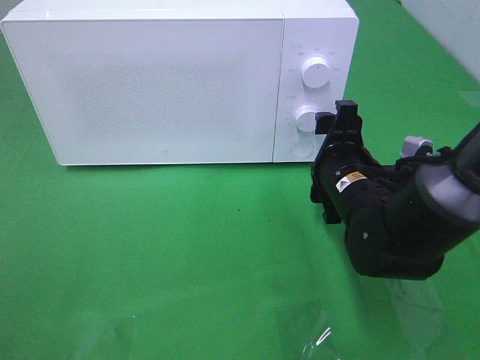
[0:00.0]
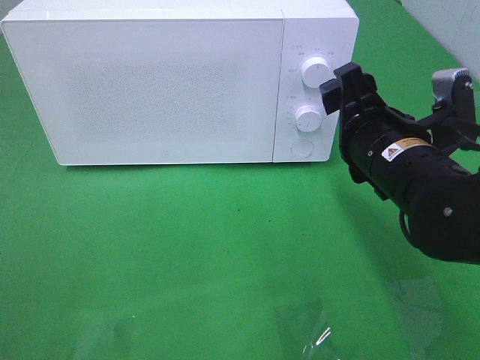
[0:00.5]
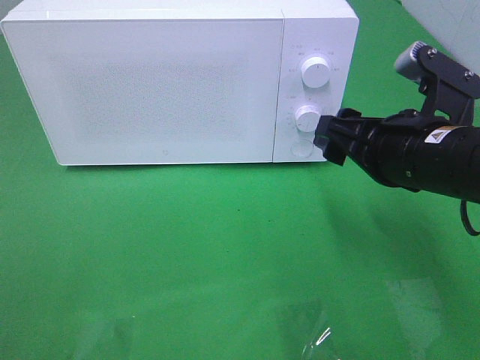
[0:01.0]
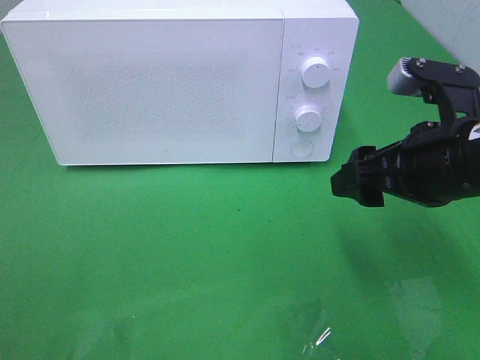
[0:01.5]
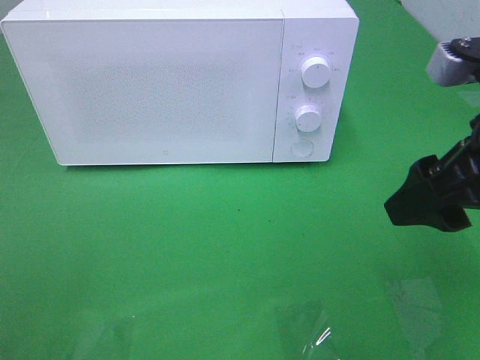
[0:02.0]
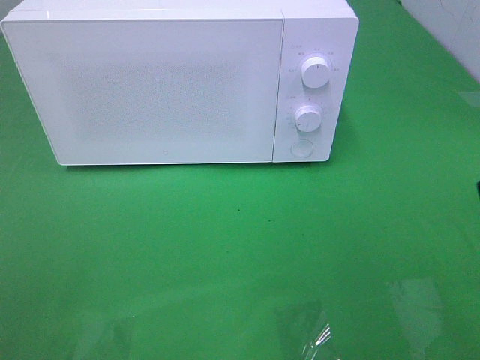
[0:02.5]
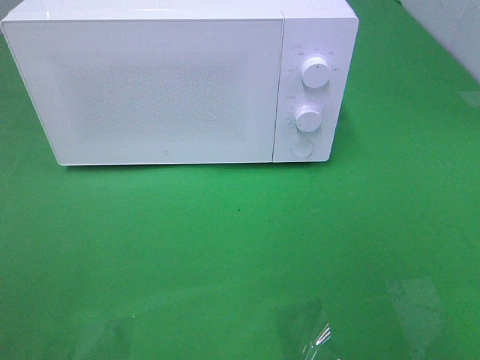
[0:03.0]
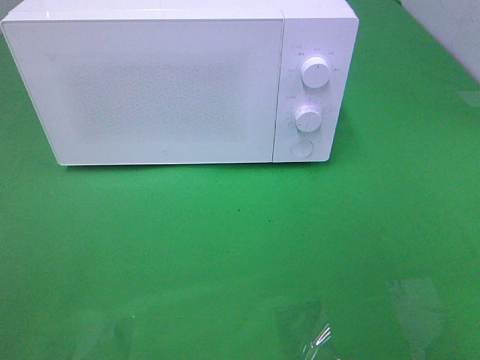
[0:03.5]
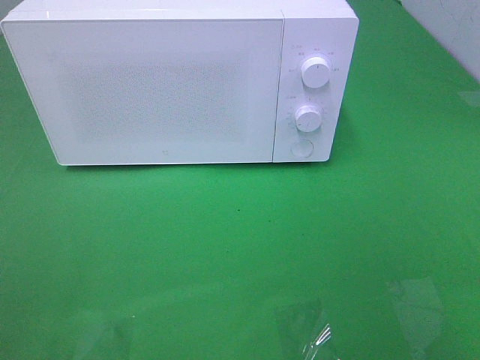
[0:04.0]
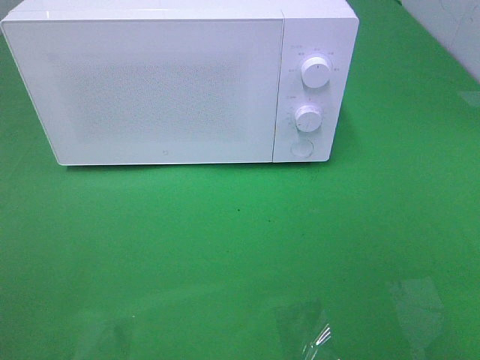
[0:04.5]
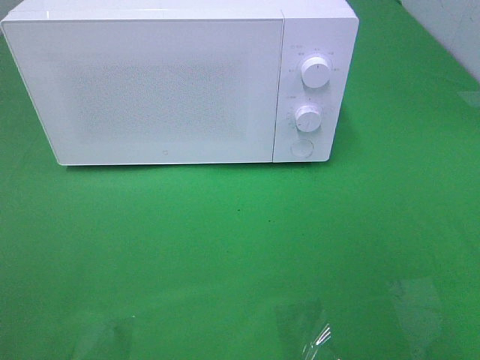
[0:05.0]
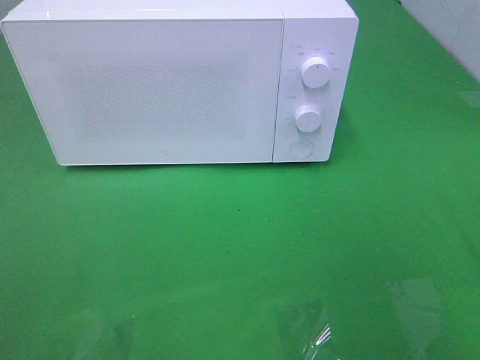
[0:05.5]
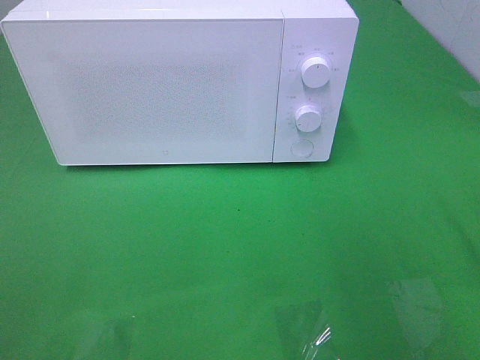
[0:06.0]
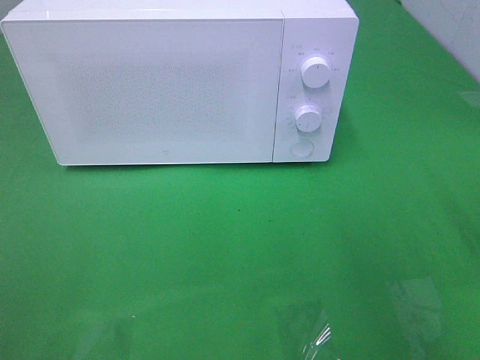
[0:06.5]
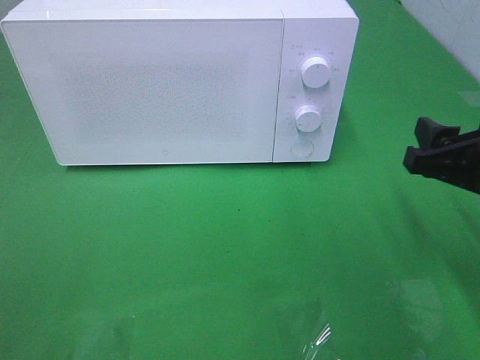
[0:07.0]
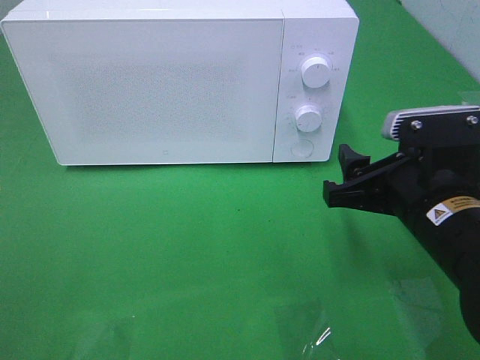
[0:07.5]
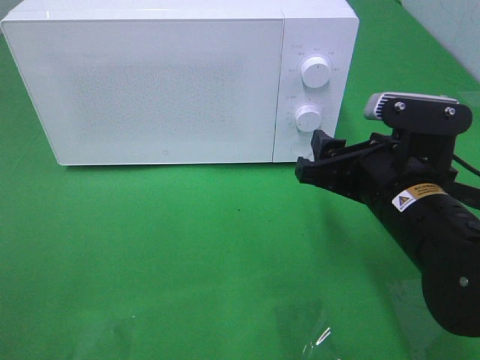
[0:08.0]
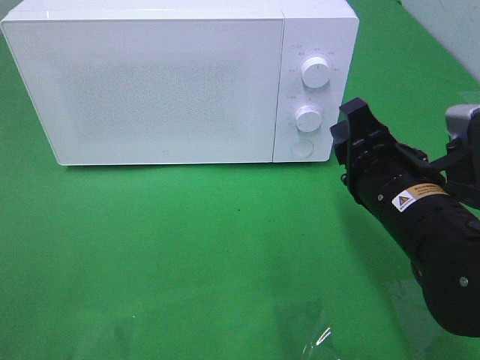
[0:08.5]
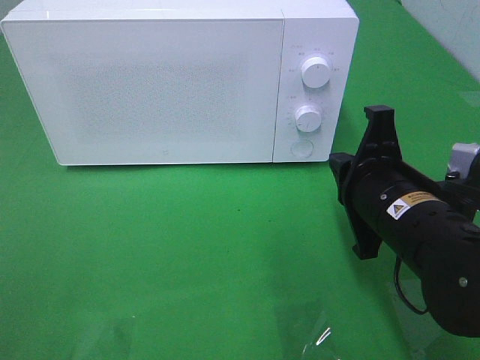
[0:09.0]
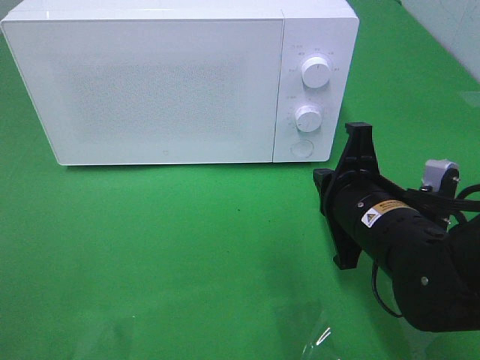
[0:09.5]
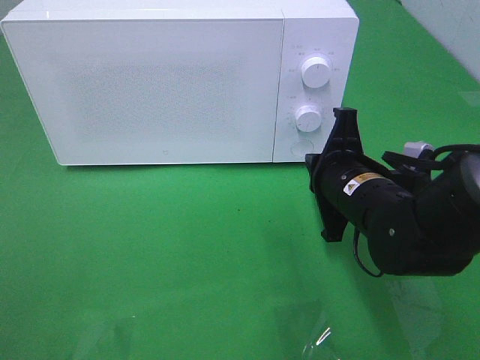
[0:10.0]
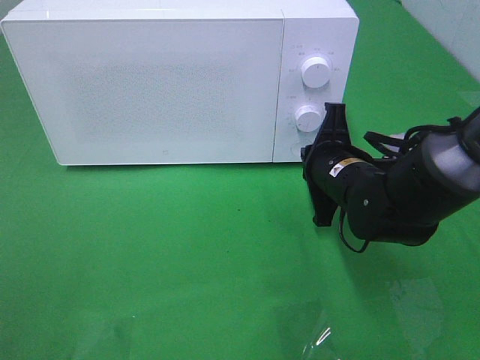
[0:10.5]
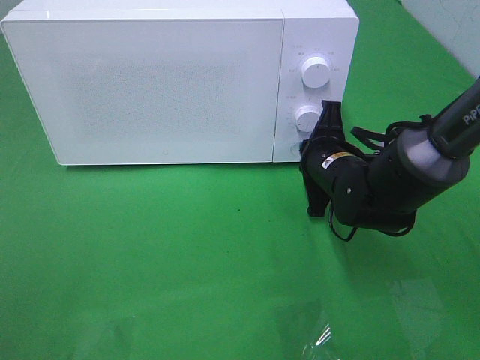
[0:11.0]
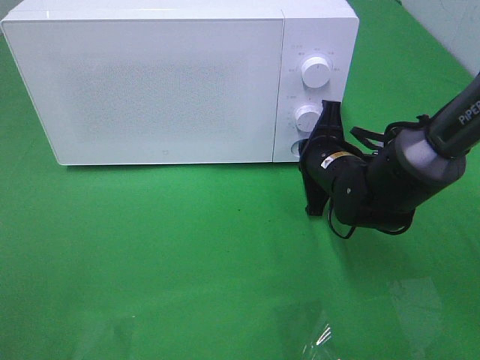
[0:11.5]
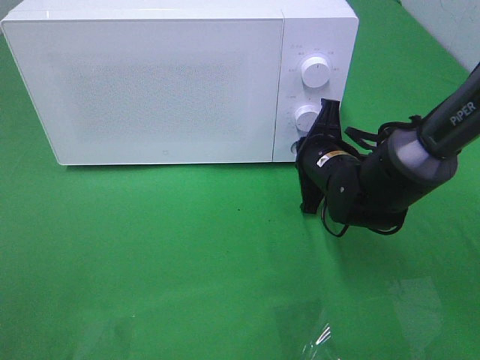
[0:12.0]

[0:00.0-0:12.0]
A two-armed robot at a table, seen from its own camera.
Task of the whole recording: Heat the burger.
0.0 to 2.0 s: The right gripper travels upward, backward and to the right by about 20 cm.
2.0 to 4.0 s: The right gripper heads backward and to the right, covering about 20 cm.
6.0 to 8.0 s: The right gripper travels to the left, downward and forward by some 20 cm.
8.0 to 10.0 s: The right gripper heads forward, covering about 5 cm, and closes up.
10.0 to 12.0 s: The right gripper shifts some 10 cm forward.

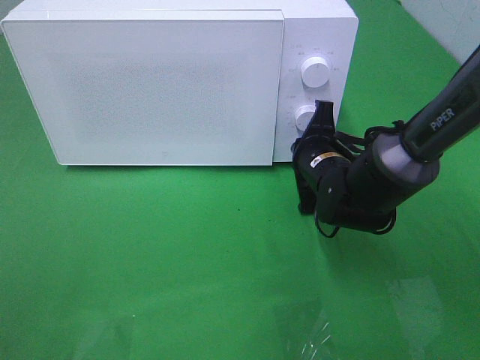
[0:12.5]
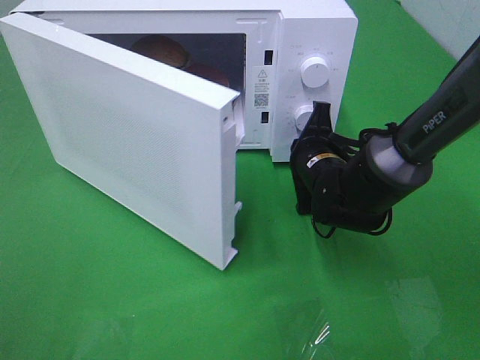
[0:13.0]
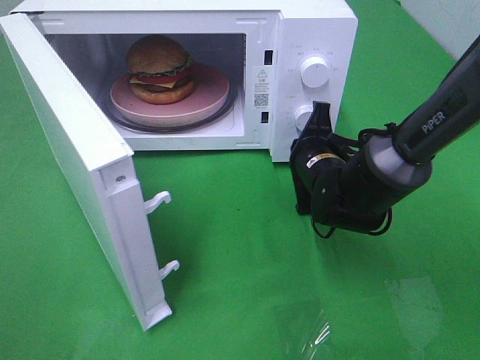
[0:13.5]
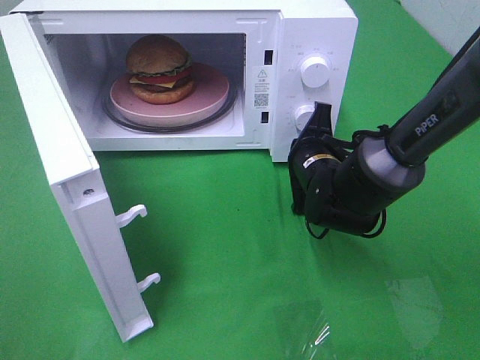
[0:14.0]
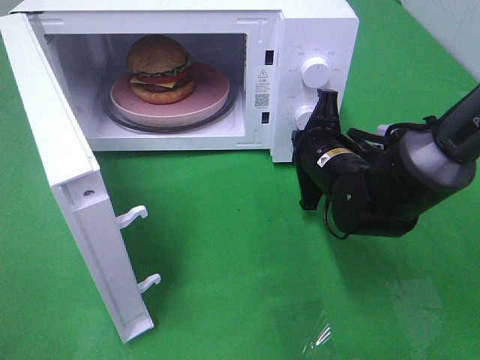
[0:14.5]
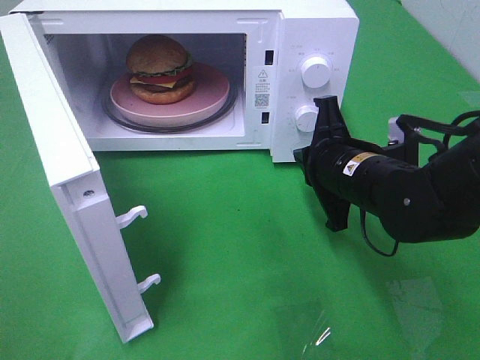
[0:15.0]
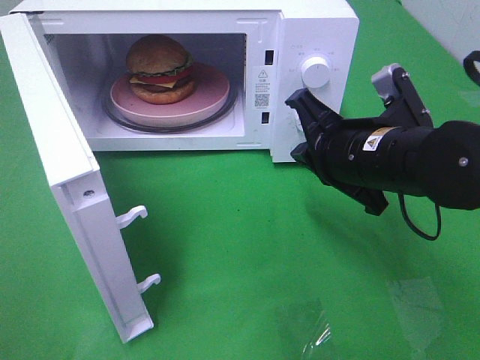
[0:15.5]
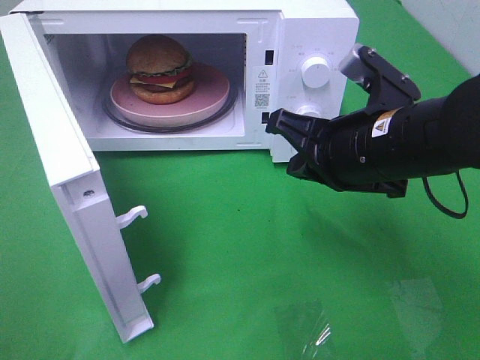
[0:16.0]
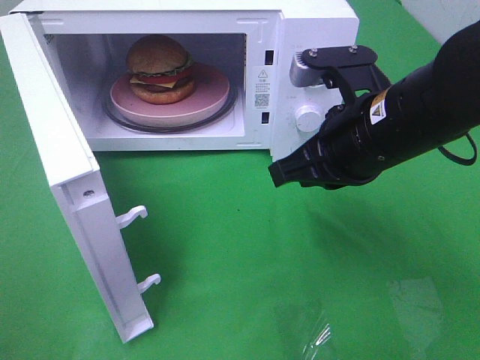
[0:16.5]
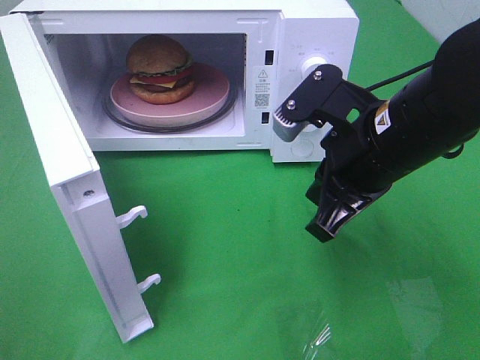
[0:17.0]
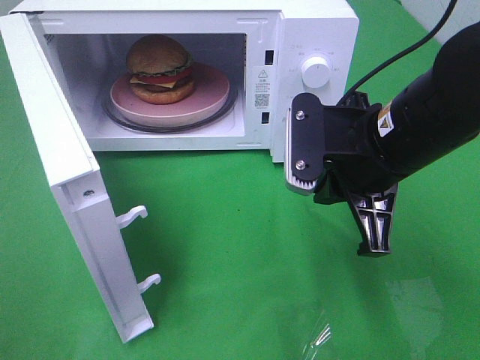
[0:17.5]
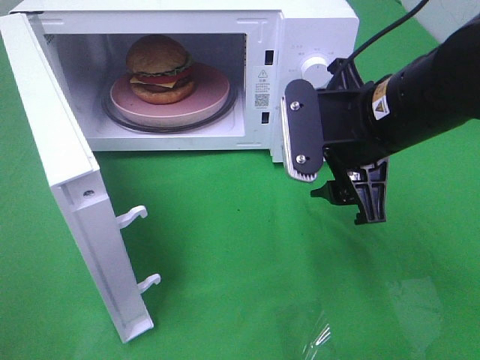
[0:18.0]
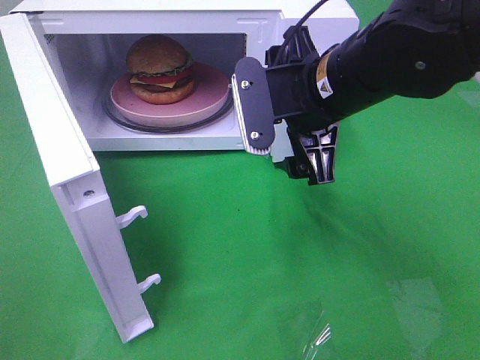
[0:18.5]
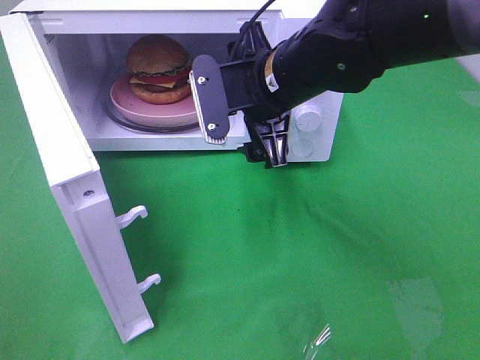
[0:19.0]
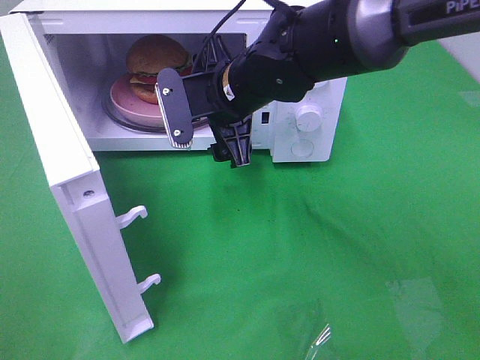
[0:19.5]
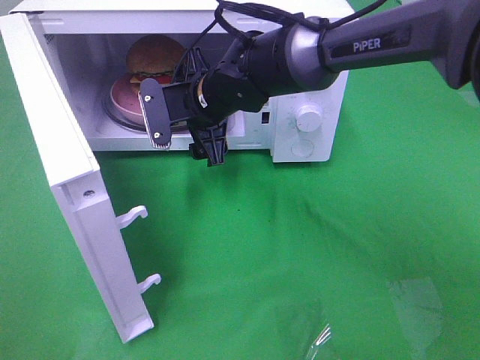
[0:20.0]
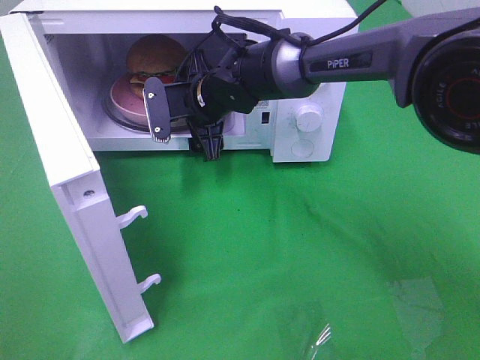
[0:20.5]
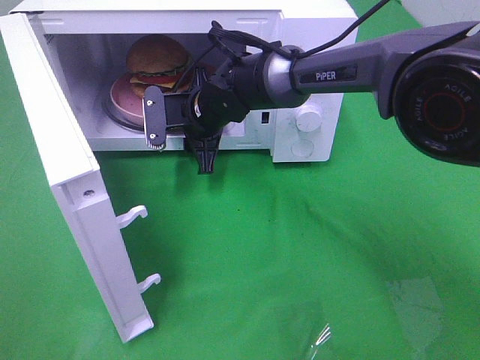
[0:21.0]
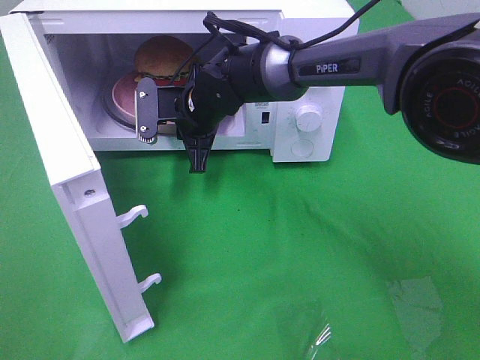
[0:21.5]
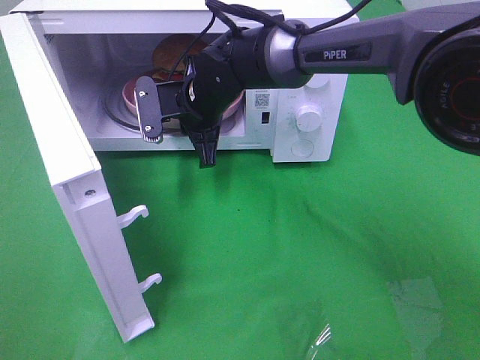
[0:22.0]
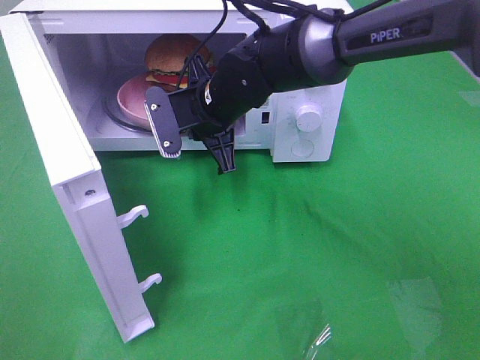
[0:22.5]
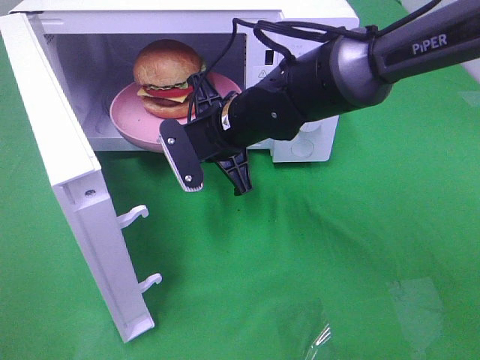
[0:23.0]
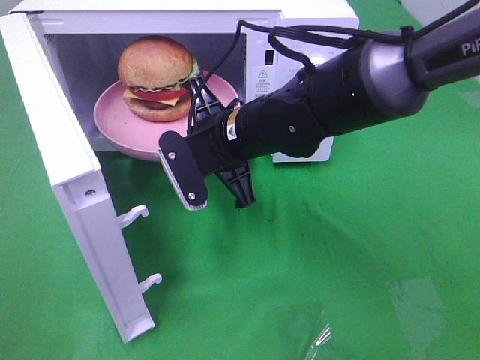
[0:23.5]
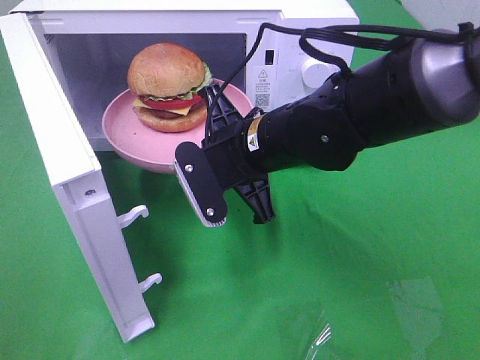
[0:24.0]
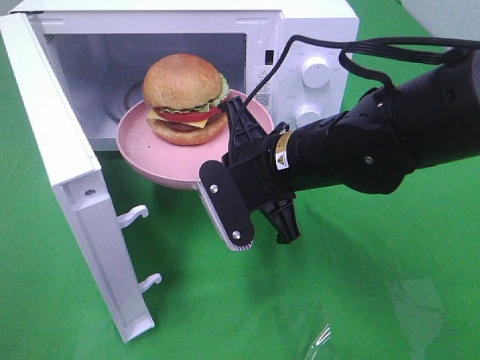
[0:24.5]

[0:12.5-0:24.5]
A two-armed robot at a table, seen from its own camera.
Task of the whole recording: Heat the burger.
Step, 12.5 to 15.0 s: Right hand: press the switch.
Step, 15.5 to 21.5 s: Right hand: grab the plate with the hamburger.
14.5 to 16.5 s: The right gripper travels upward and backward by about 15 cm.
16.5 to 18.5 s: The right gripper shifts by about 5 cm, and opens up.
18.5 to 20.5 s: The right gripper shifts some 20 cm forward, to the left and downward.
20.5 to 22.5 s: The right gripper shifts by some 5 cm, and closes its fingers.
22.5 to 24.5 s: The right gripper goes some 15 cm backward and to the right.

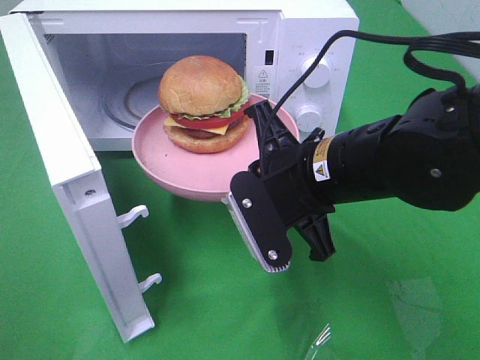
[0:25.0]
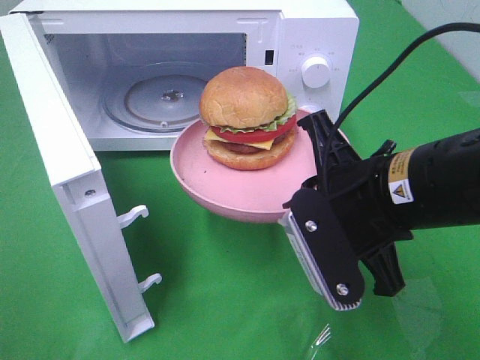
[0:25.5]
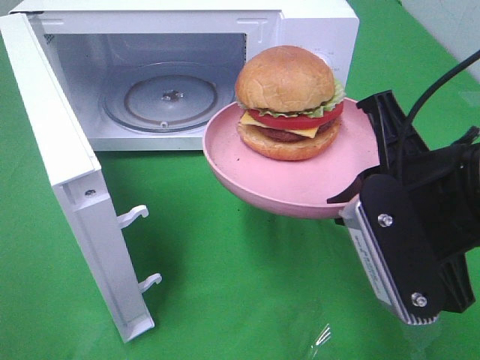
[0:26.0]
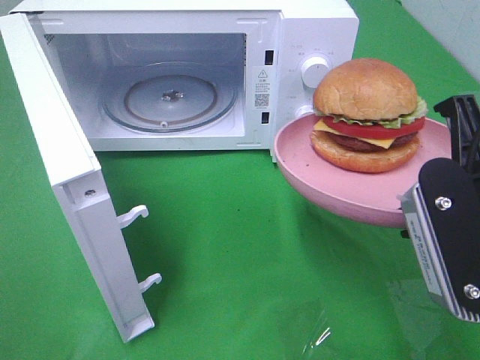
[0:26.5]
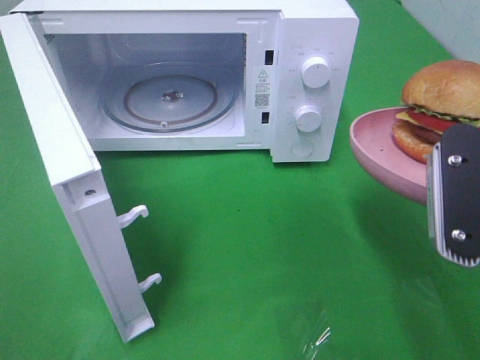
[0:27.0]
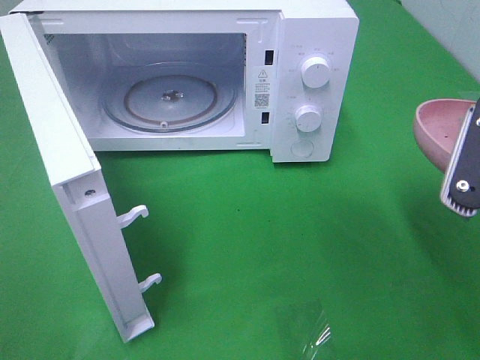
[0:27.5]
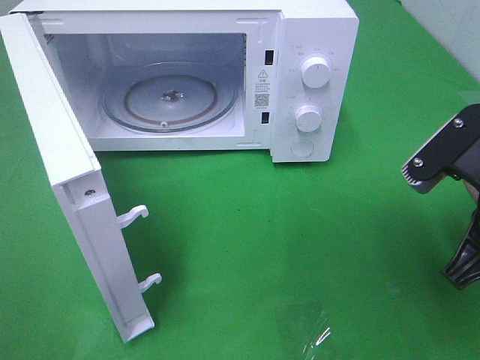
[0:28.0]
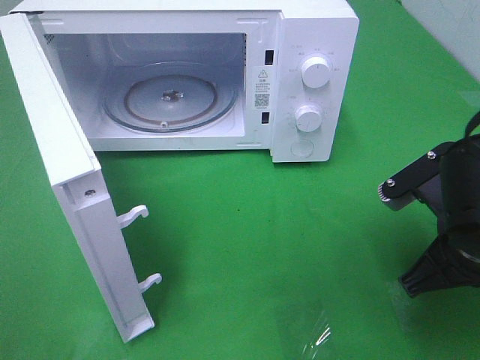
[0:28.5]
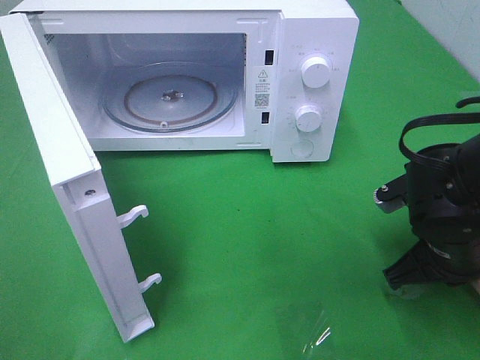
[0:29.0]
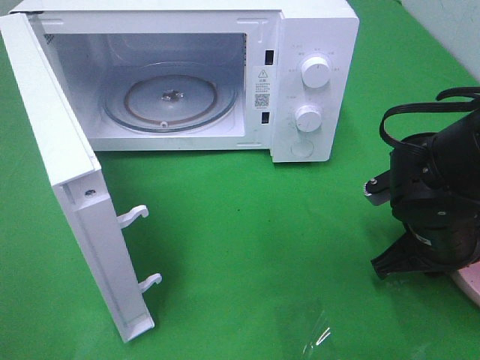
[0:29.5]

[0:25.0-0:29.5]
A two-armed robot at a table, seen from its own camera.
Task of the whole recording: Heat the burger.
25.0 to 27.0 s: The right gripper shifts roughly 15 cm to the right, backward and upward.
27.0 to 29.5 s: The right gripper moves downward and forward, some 20 cm.
